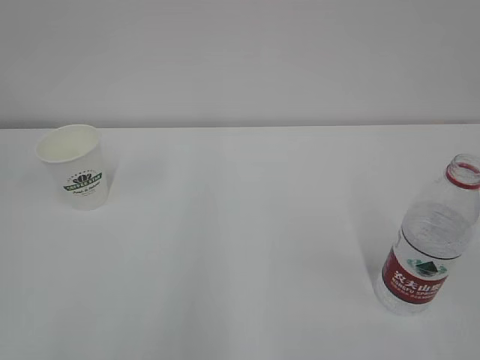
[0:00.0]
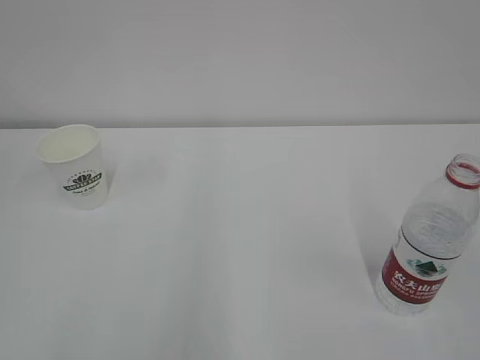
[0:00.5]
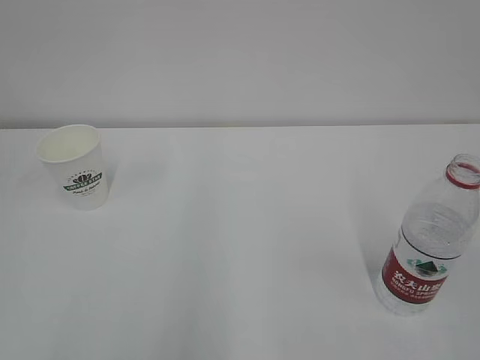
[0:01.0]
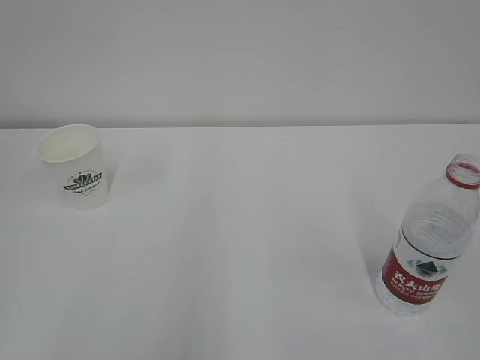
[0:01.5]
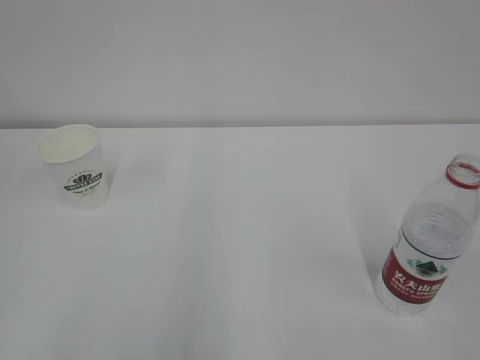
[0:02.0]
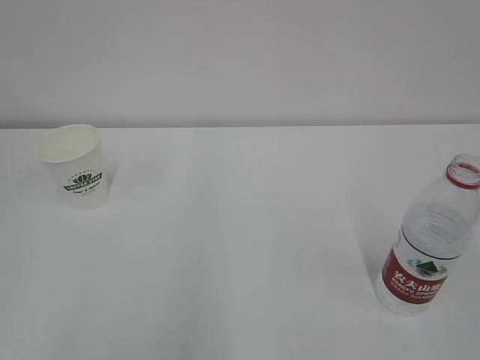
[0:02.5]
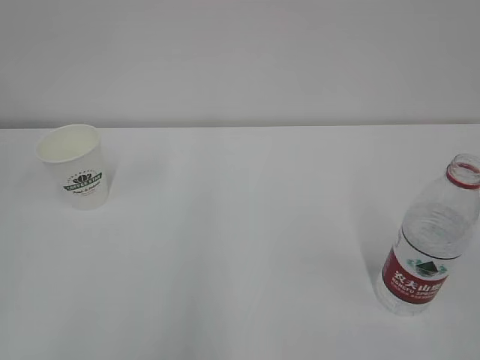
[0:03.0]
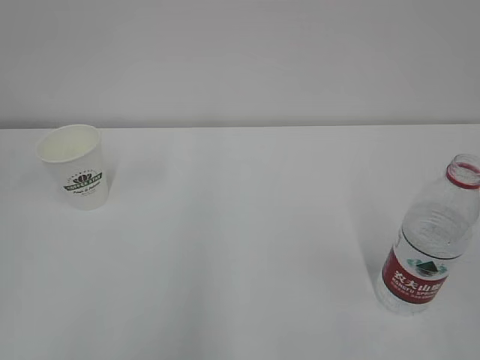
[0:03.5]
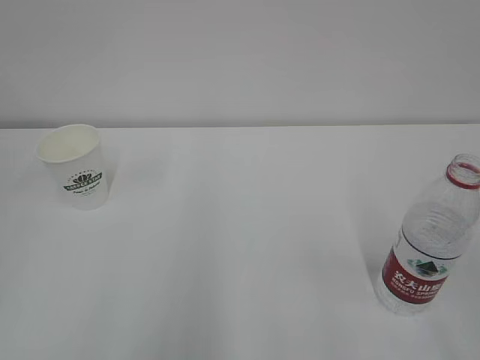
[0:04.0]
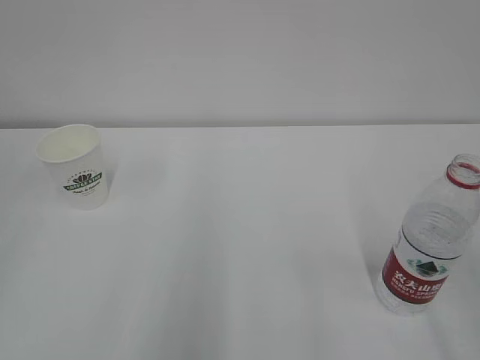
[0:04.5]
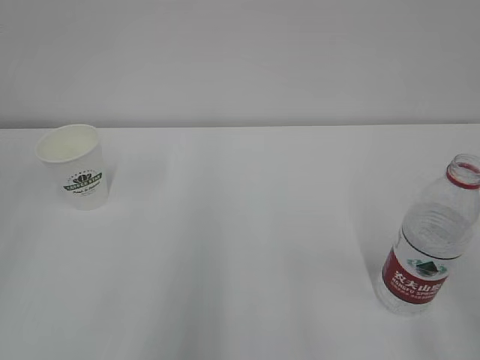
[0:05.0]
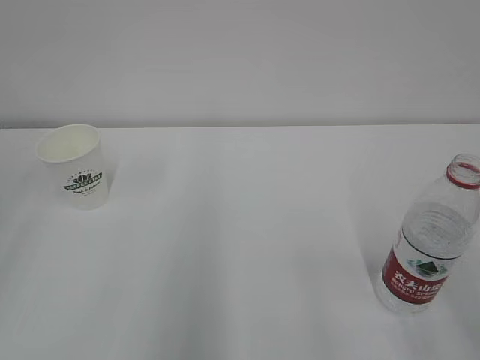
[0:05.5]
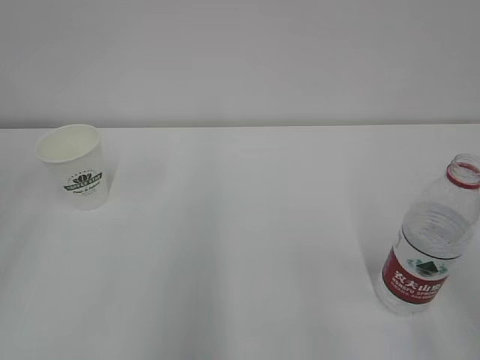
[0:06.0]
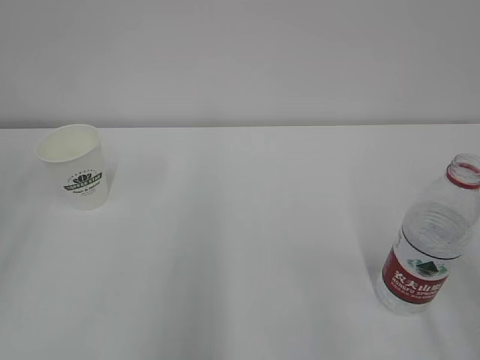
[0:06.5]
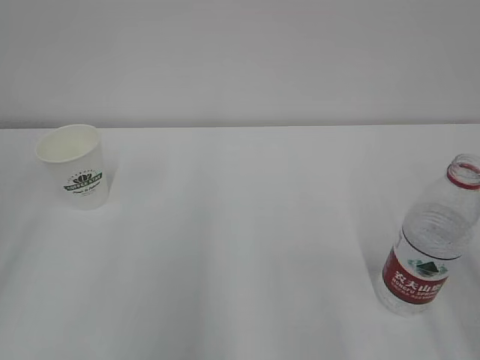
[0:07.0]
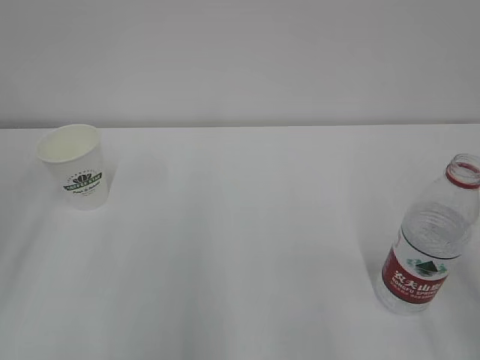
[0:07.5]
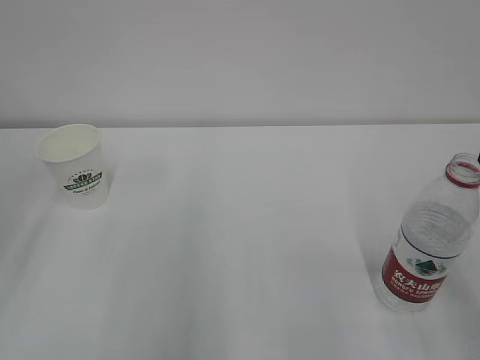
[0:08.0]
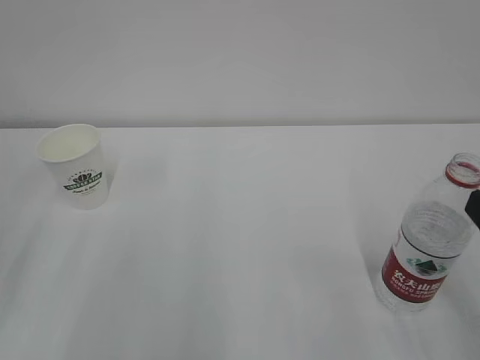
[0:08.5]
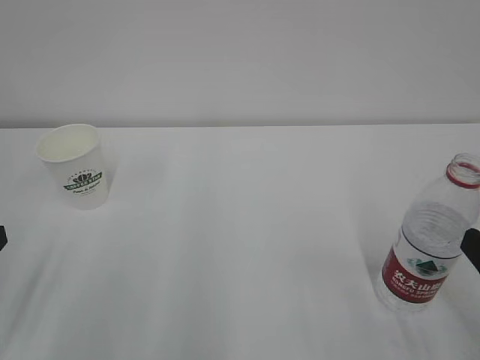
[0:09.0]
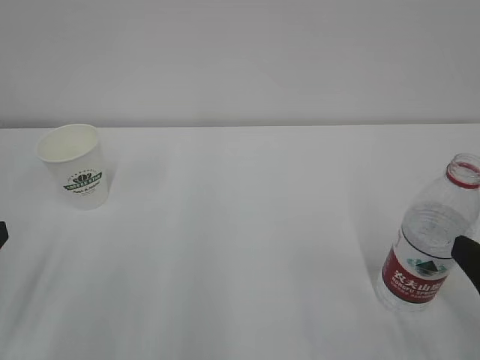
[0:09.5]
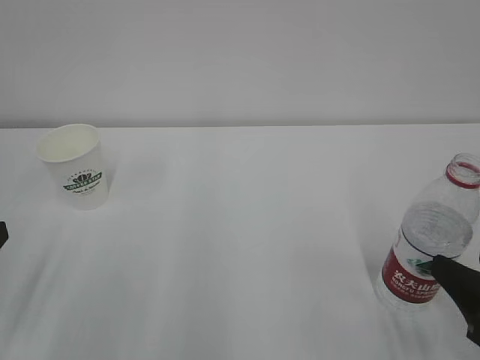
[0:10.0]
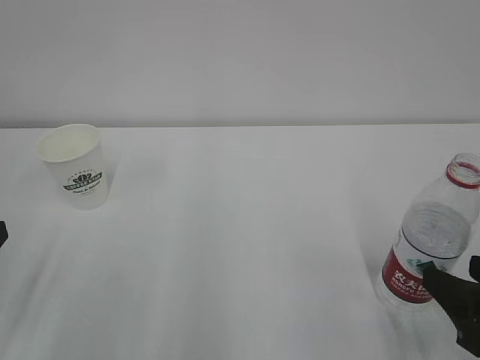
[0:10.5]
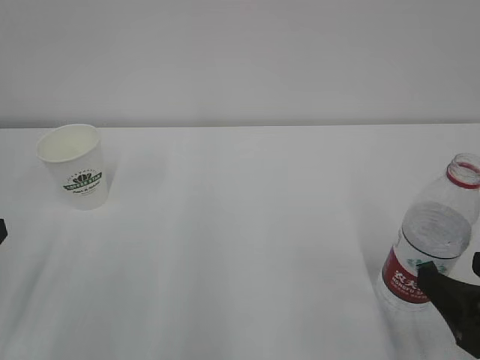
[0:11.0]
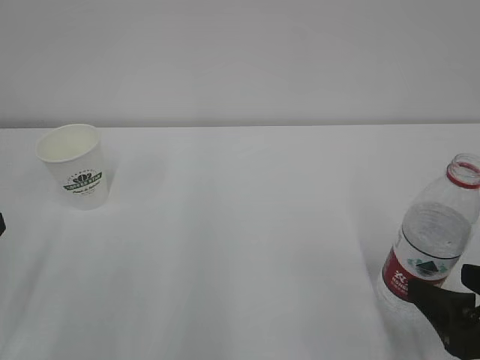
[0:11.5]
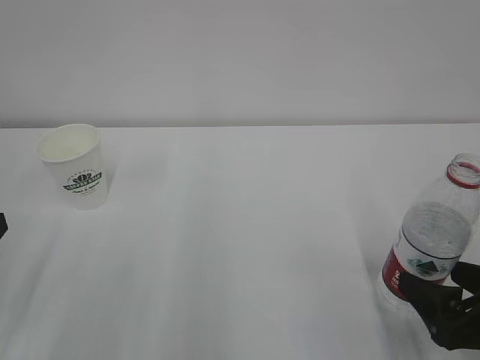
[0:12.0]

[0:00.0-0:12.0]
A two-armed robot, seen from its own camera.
0:08.0 to 0:10.0: The right gripper travels downward by some 10 cm.
0:10.0 to 0:12.0: The right gripper opens its fingers.

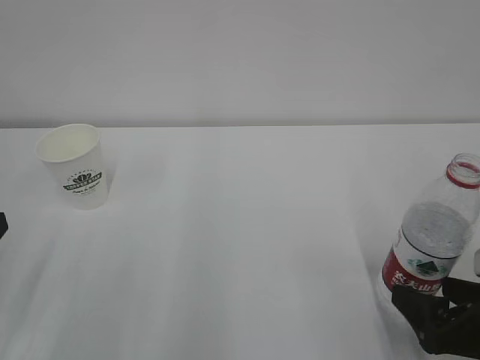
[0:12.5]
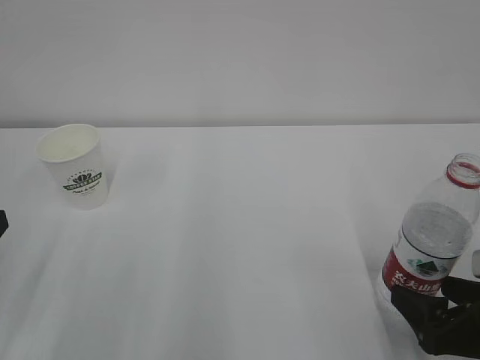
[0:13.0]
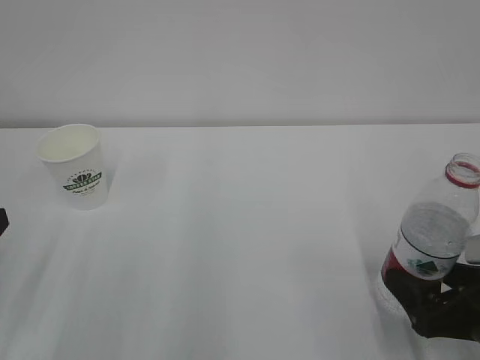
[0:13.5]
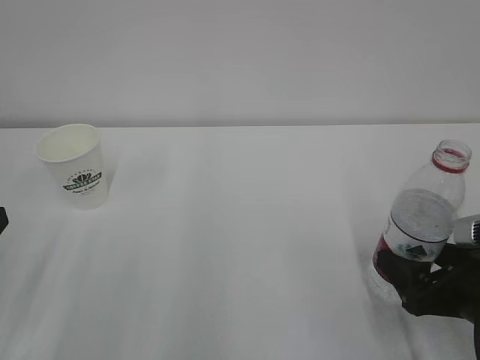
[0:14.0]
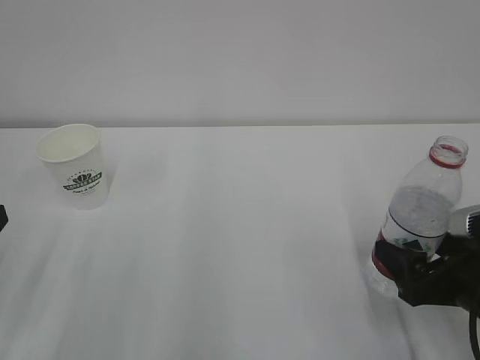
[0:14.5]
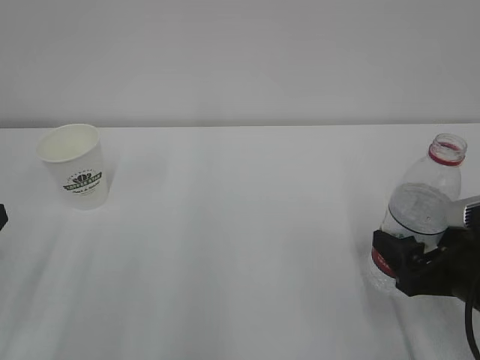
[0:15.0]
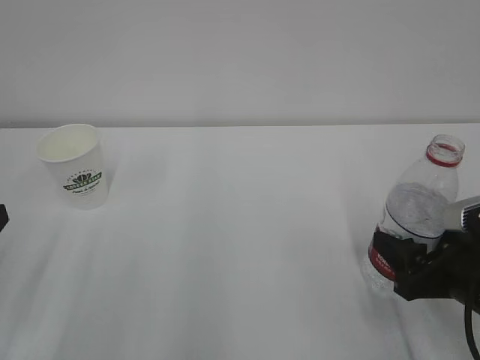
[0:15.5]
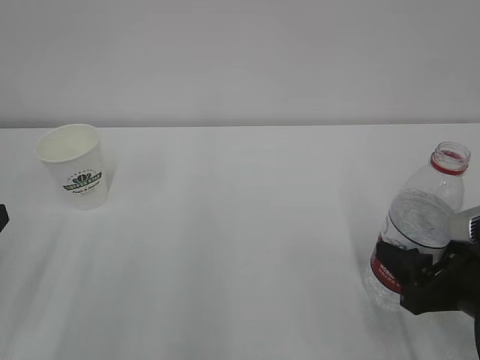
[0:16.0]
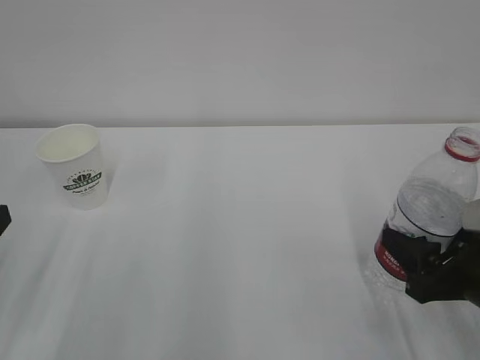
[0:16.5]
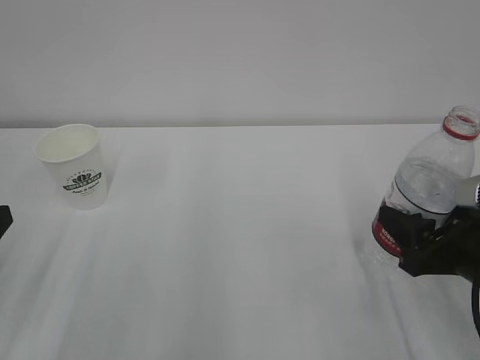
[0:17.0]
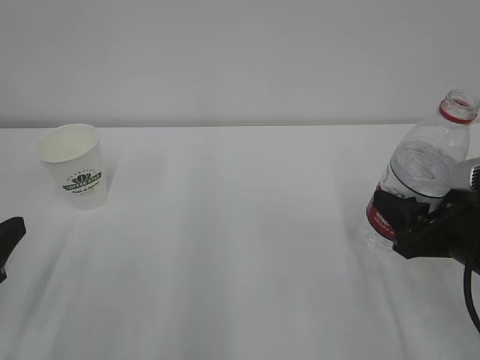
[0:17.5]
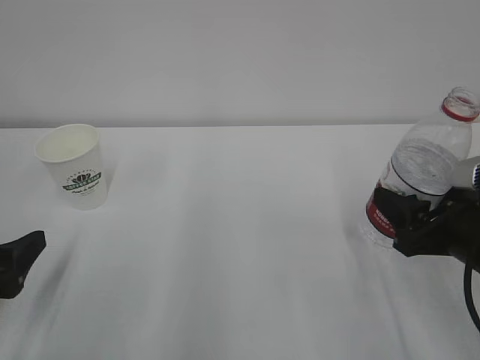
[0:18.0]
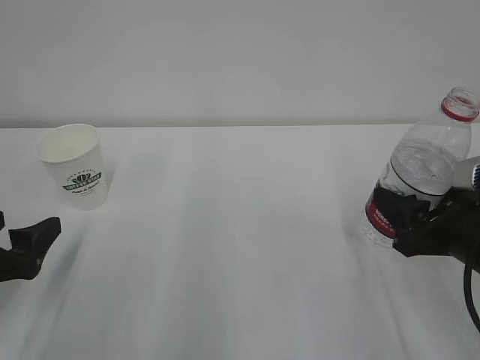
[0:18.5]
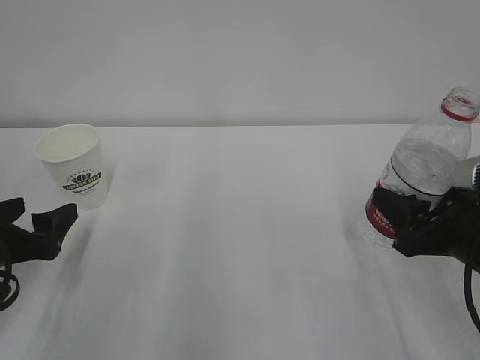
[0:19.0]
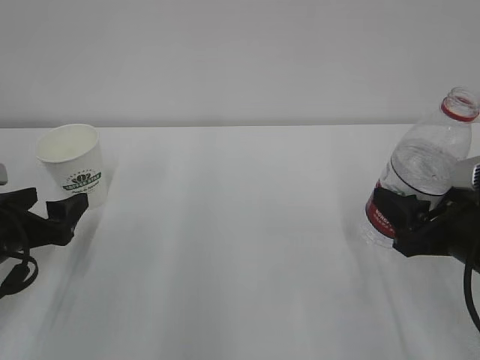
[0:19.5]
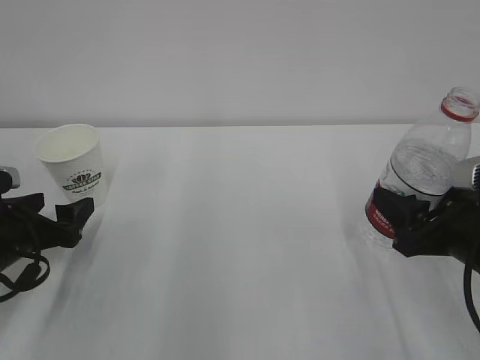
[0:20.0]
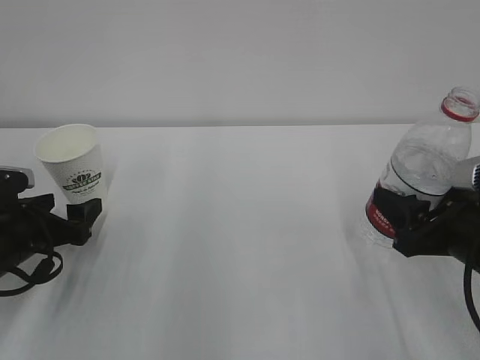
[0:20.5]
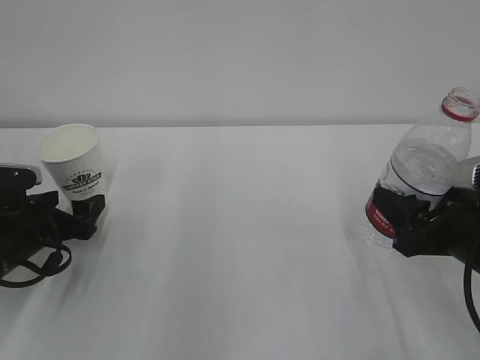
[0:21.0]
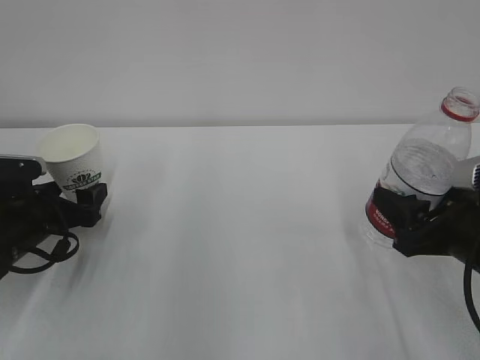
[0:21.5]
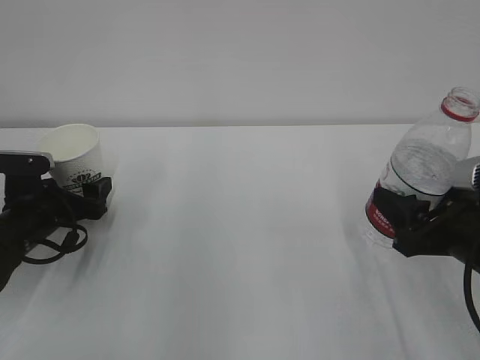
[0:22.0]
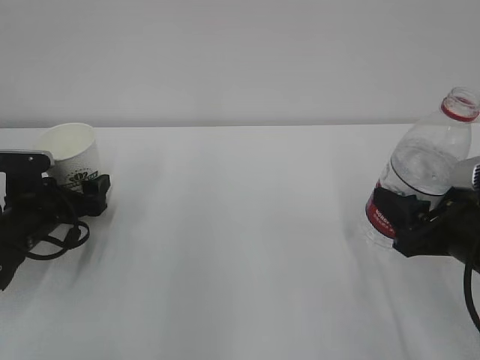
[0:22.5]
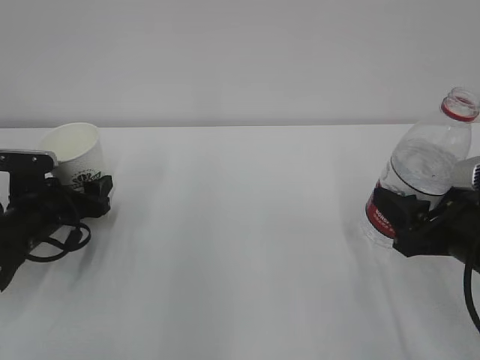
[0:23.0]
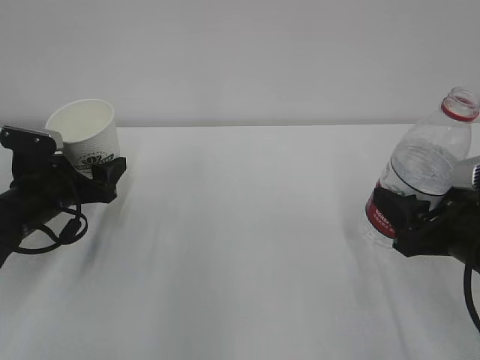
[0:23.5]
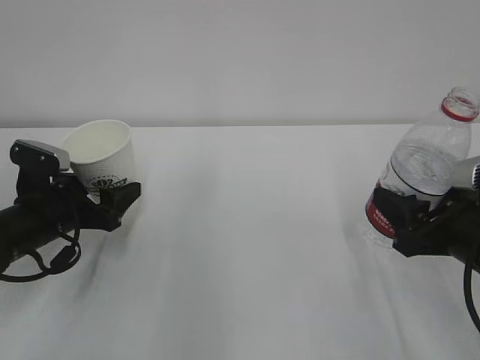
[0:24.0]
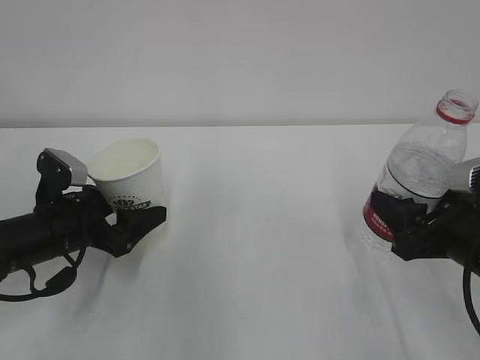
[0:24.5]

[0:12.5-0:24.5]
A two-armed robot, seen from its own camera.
0:12.5 to 0:14.5: The grippers make only small movements.
0:14.5 to 0:16.5: The right gripper closes its fingers.
0:16.5 to 0:18.5: The left gripper changes place by some 5 cm, and opens its fingers.
0:18.5 to 0:20.5: The left gripper is displaced forward by some 10 cm.
0:20.5 to 0:22.5: The left gripper travels forward by some 5 cm.
0:22.5 to 0:24.5: The left gripper ends up some 5 cm from where it was, and closes its fingers.

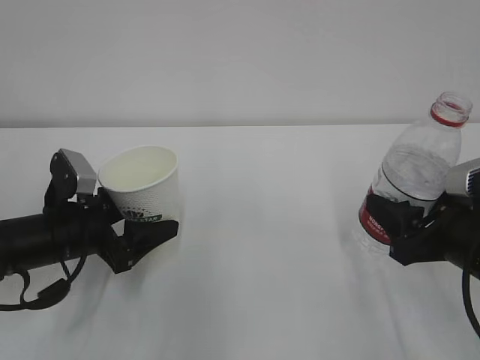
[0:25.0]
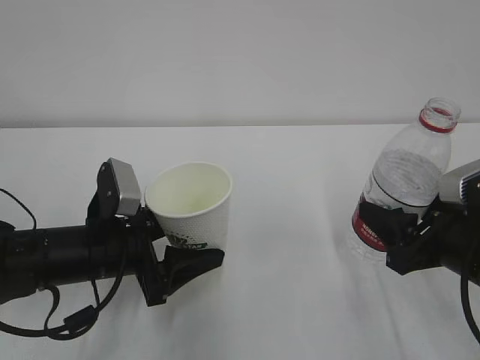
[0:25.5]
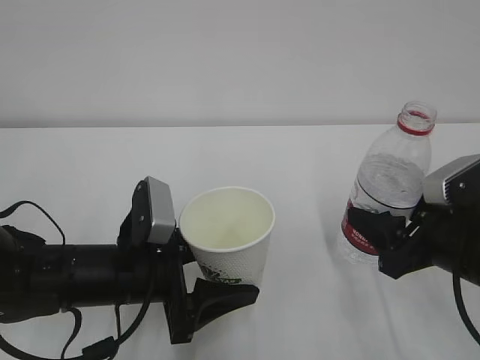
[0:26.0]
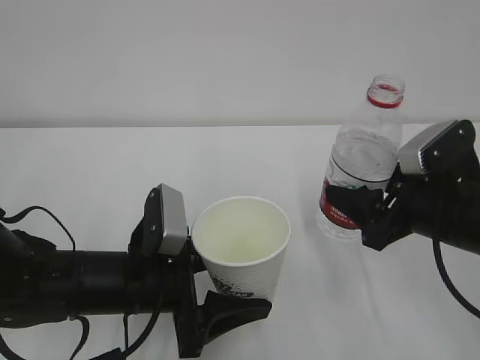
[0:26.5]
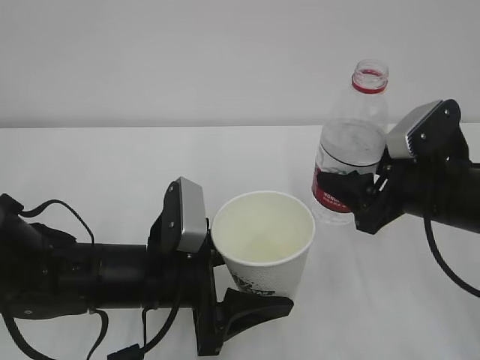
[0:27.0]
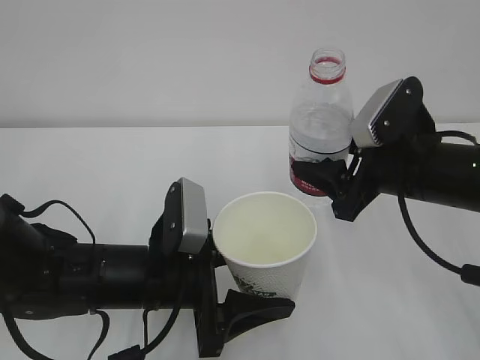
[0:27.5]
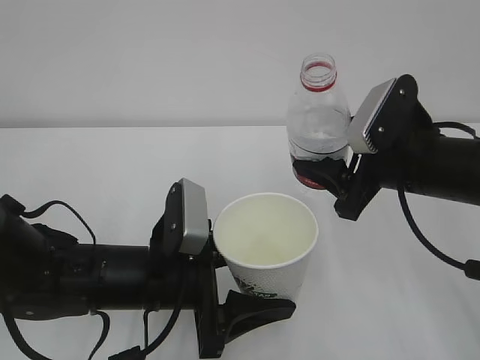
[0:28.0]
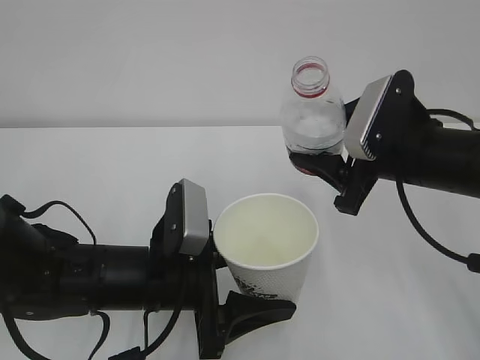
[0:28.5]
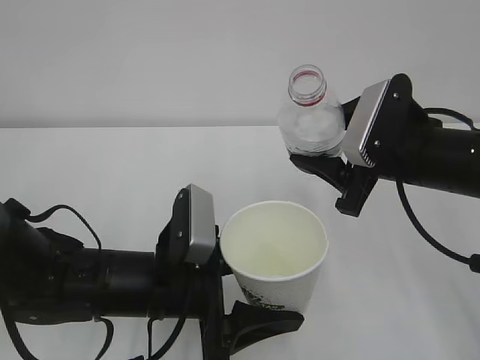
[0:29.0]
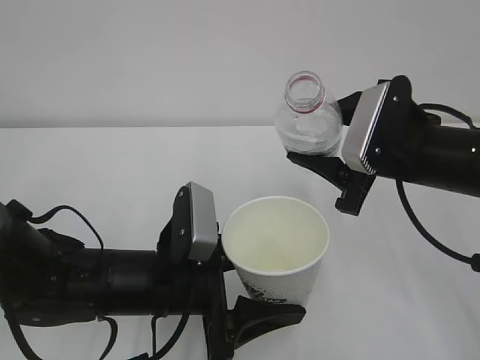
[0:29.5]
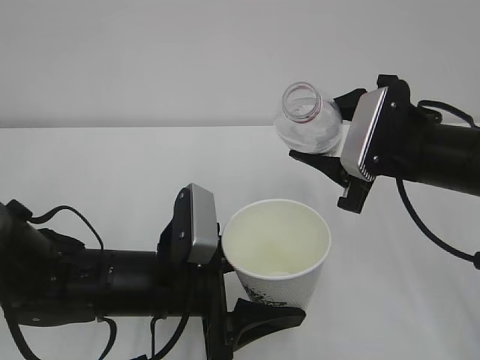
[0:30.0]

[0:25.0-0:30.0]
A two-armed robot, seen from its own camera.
0:25.0 to 0:27.5: The left gripper is displaced to the right and backward by roughly 15 cm; the right gripper moves forward and to the left, some 10 cm.
